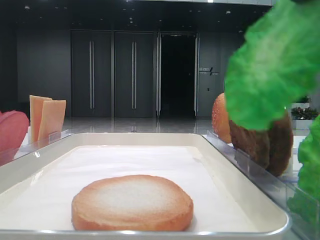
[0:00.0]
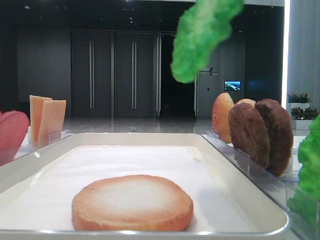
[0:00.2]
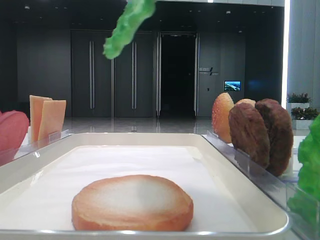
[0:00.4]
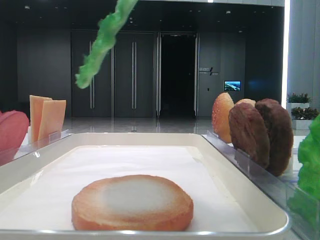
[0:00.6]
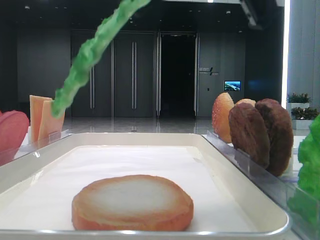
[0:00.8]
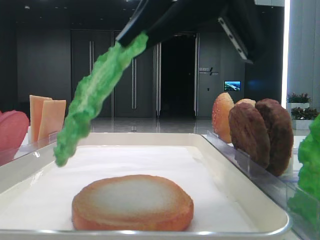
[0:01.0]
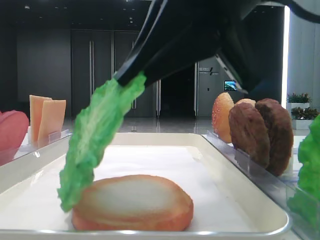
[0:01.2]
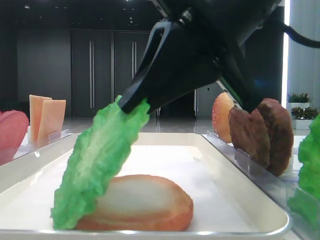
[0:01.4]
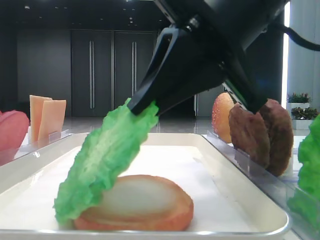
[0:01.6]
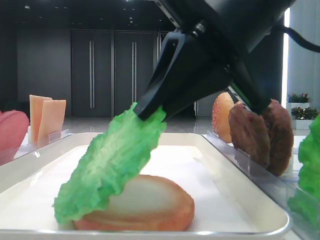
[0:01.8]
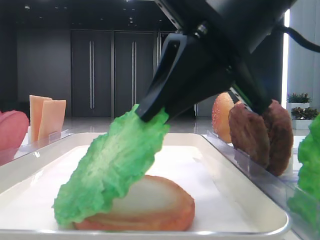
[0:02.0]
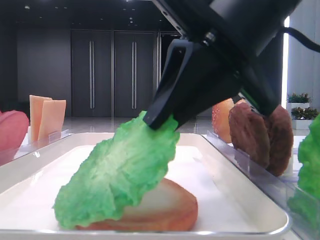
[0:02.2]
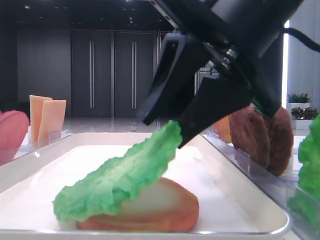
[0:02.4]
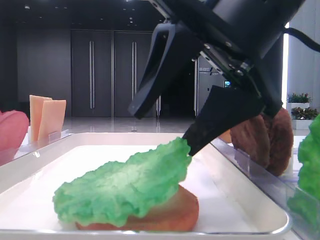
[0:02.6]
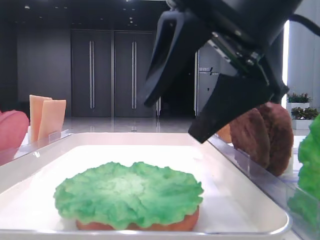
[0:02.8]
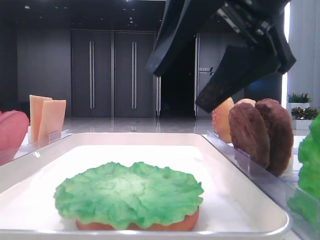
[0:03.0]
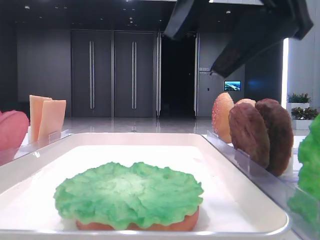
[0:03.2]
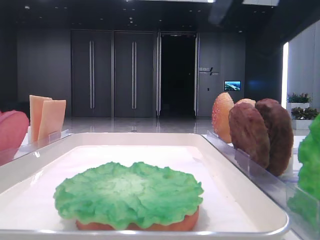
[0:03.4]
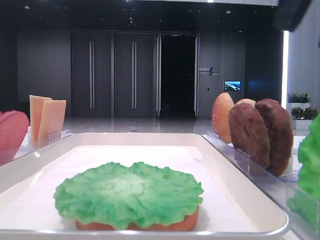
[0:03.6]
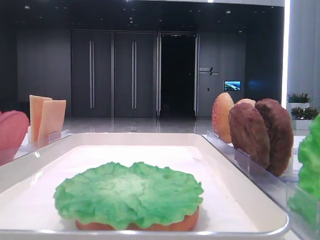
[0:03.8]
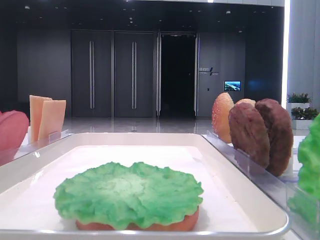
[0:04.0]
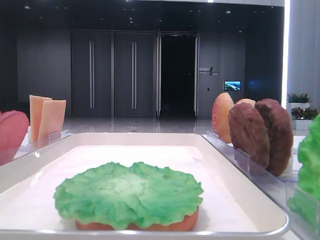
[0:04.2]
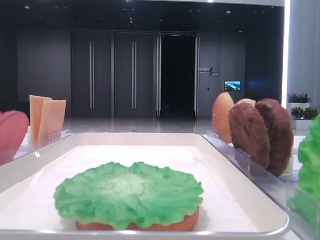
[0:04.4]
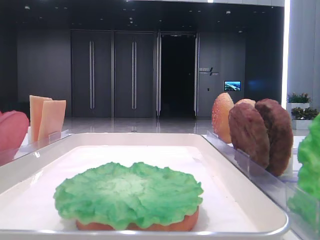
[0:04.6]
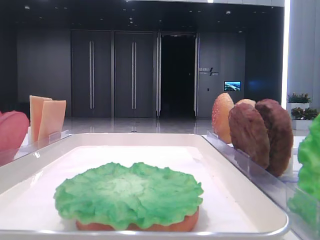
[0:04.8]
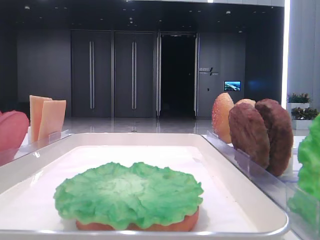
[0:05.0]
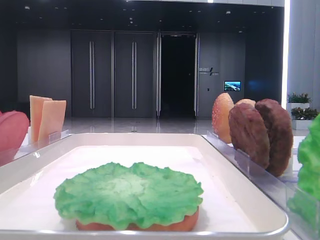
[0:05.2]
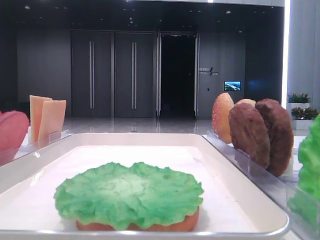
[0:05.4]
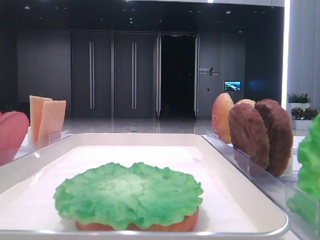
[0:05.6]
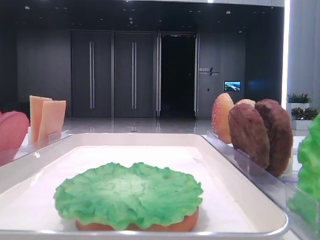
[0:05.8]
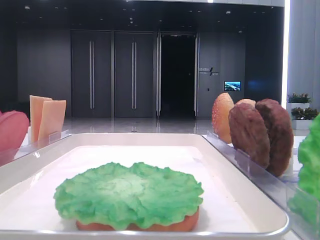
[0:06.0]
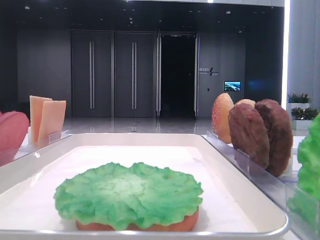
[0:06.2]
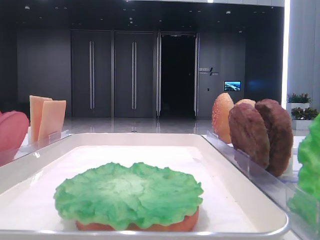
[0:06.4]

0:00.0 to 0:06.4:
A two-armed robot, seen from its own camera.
Step, 0:00.0 to 0:02.6: Place the lettuce leaf on the bottom bread with the right hand.
0:00.0 to 0:01.6: The right gripper shifts approximately 15 cm downward, to the left and forward.
0:01.6 to 0:03.2: The right gripper moves upward, approximately 5 cm, and opens its fingers.
0:03.2 to 0:04.8: The right gripper travels to the right and backward by roughly 20 cm.

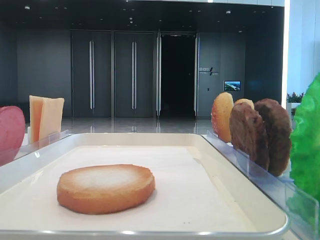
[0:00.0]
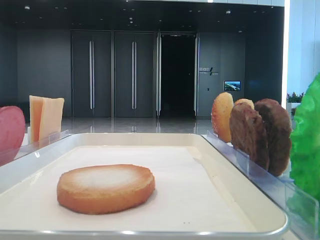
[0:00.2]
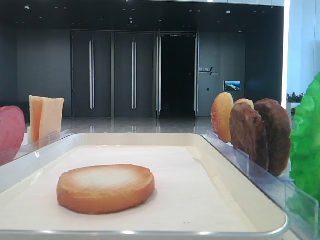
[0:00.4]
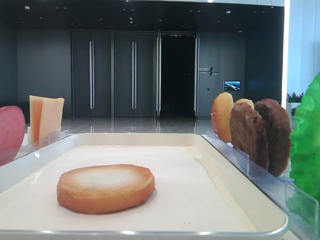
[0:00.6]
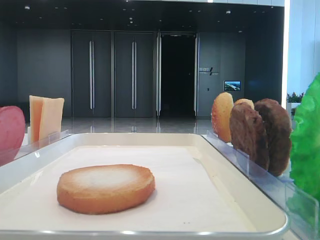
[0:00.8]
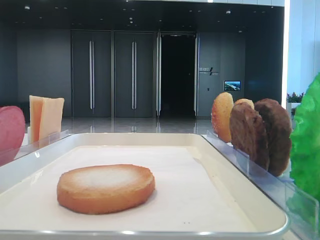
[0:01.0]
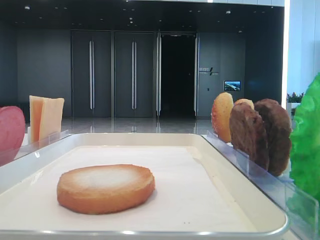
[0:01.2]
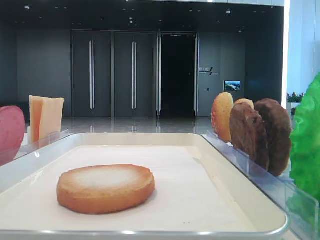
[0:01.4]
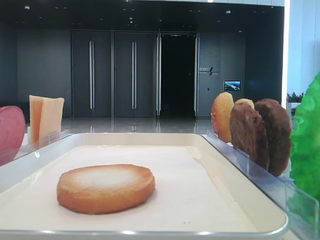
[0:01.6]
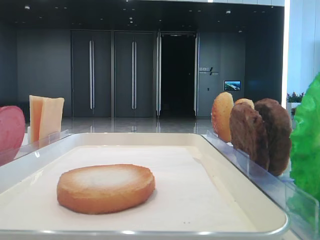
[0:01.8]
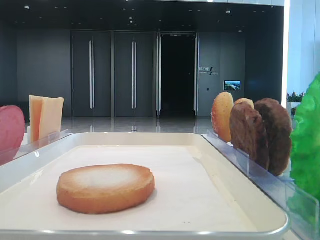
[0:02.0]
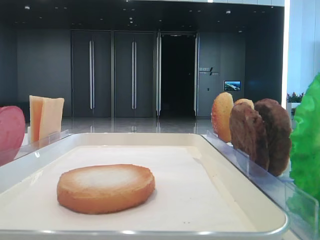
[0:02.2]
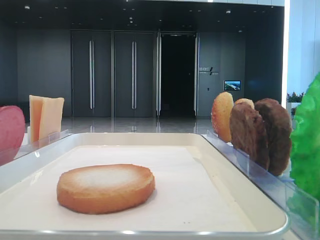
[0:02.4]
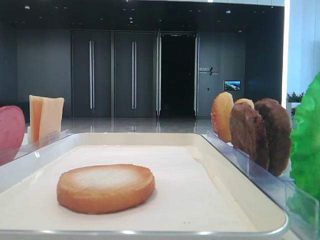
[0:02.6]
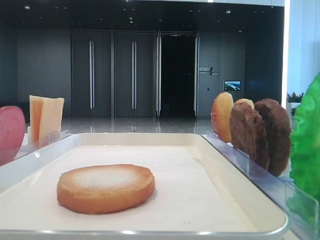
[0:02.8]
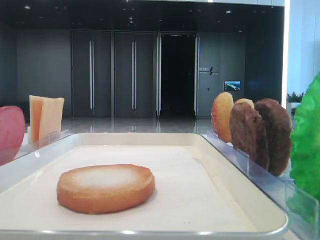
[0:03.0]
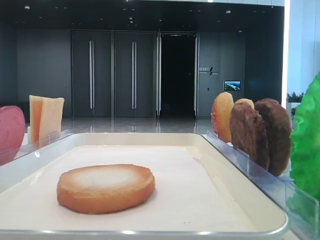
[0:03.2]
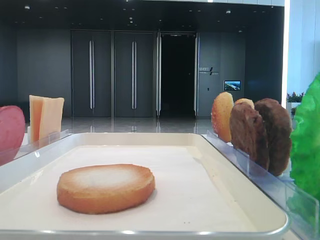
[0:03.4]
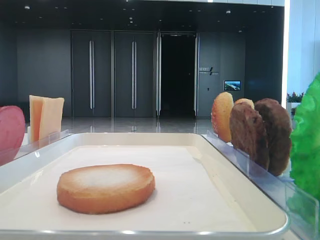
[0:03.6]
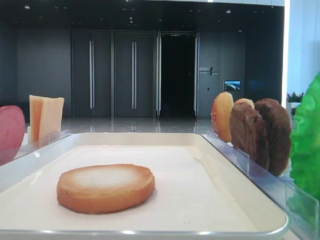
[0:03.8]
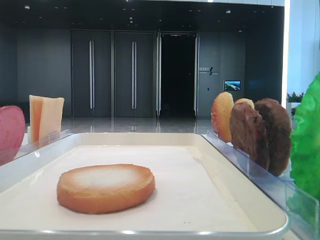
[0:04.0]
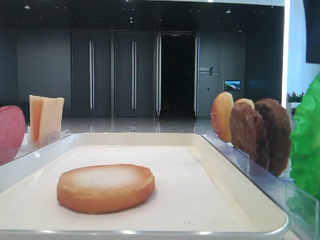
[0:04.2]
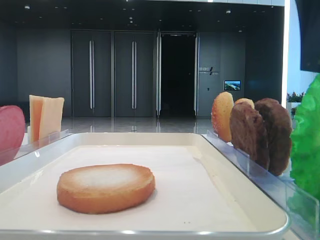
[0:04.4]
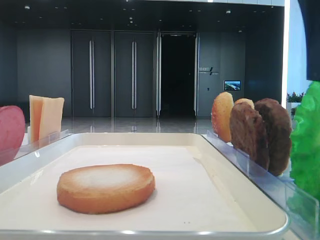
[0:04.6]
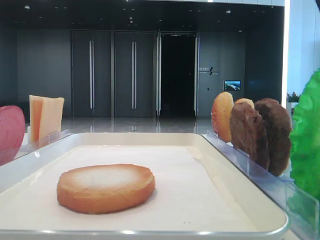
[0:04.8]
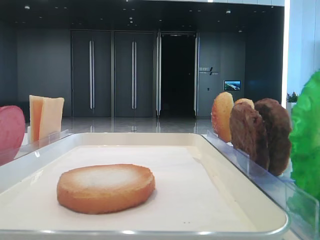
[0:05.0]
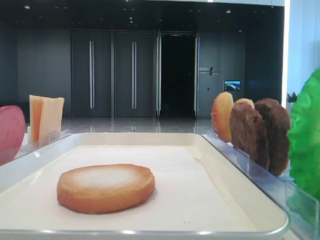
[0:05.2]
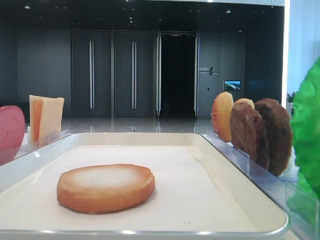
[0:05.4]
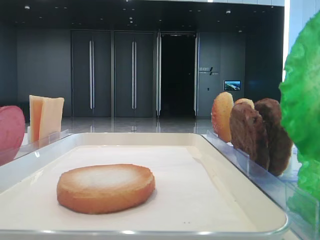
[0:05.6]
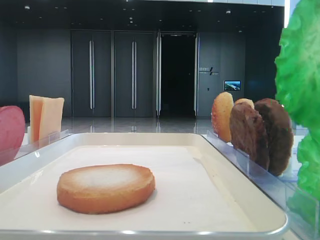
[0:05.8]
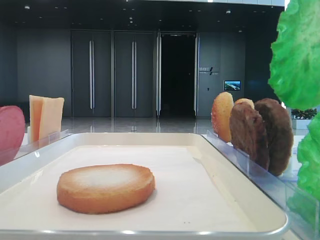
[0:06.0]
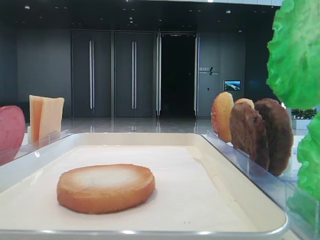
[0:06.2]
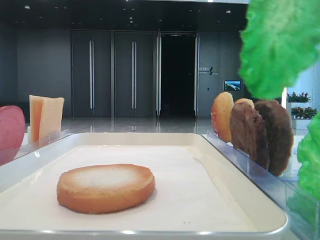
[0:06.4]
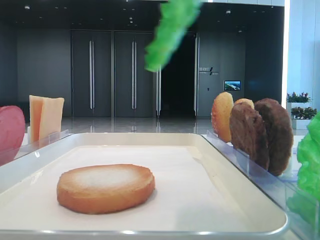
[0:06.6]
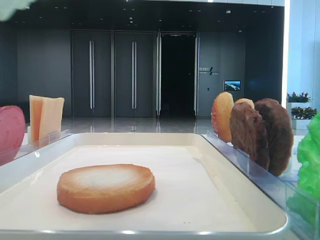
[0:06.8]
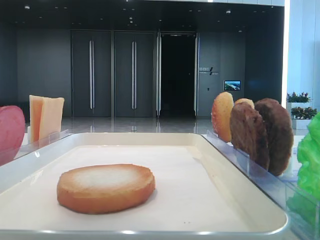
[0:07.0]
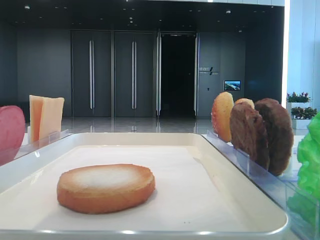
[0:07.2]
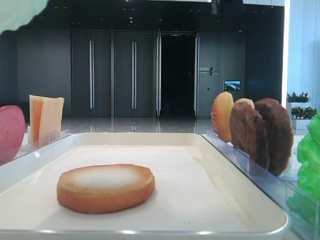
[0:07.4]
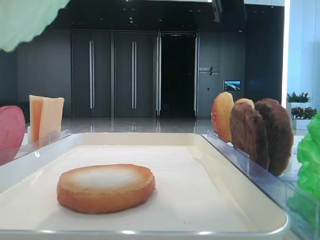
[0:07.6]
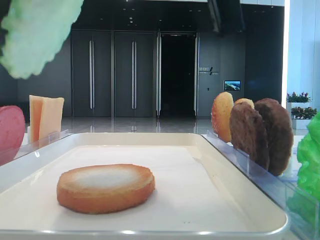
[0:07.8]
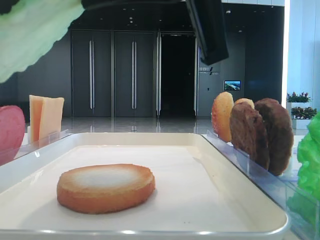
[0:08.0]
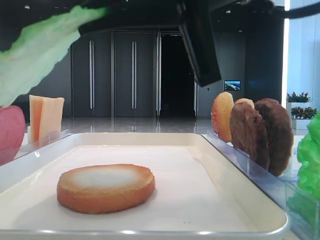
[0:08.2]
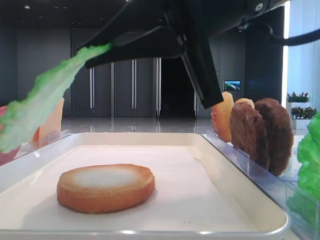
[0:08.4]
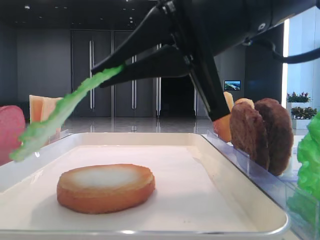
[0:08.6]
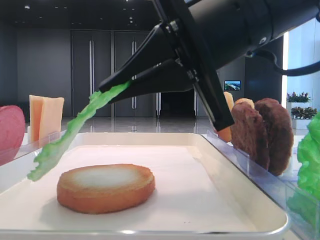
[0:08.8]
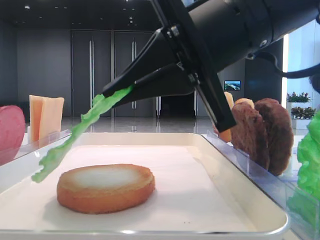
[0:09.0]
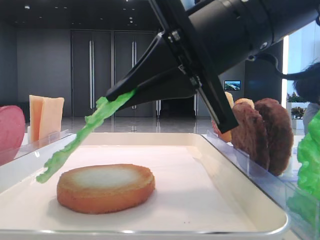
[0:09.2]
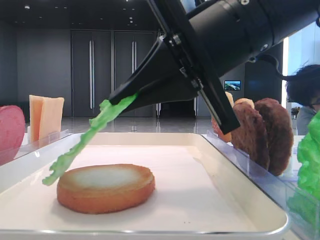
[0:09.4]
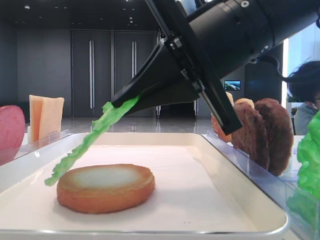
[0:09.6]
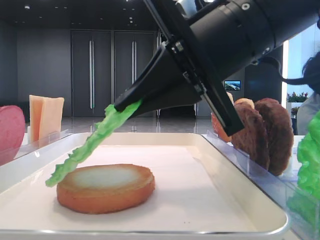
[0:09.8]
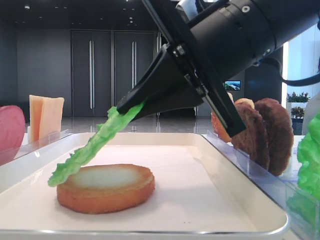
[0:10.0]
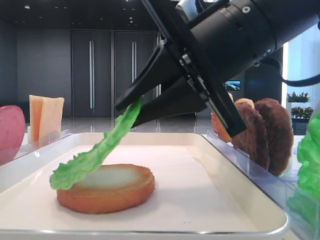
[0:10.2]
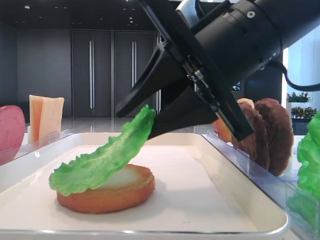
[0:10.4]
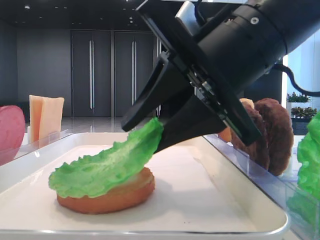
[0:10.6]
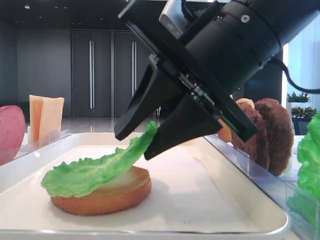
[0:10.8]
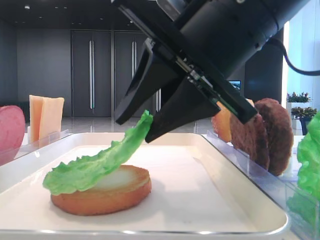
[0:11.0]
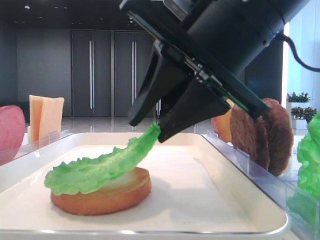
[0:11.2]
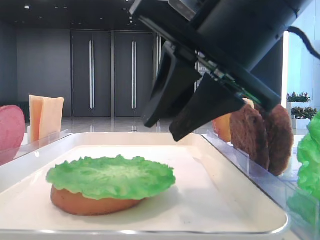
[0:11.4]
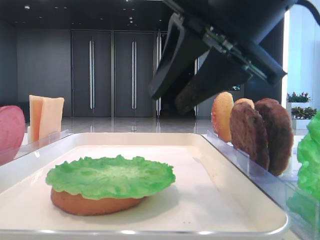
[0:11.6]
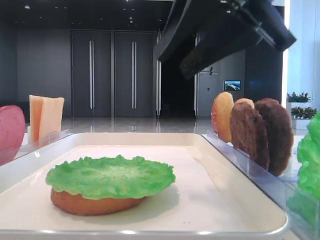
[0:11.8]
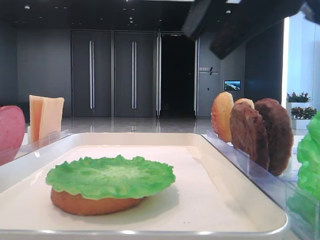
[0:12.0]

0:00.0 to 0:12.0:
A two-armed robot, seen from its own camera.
Step, 0:00.0 to 0:04.8: Grab the lettuce leaf with the right hand.
Step, 0:05.0 to 0:11.2: Place the lettuce leaf on the bottom bread with the right hand.
0:03.0 to 0:04.4: The right gripper shifts about 10 cm to the left, downward and forward.
0:04.4 to 0:06.0: The right gripper travels upward by roughly 5 cm, and closes its fingers.
0:06.0 to 0:07.6: The right gripper is displaced to the left and downward by approximately 10 cm.
0:07.6 to 0:09.0: The right gripper travels downward by roughly 10 cm.
0:09.0 to 0:10.4: The right gripper opens its fingers.
0:10.4 to 0:12.0: The right gripper goes about 10 cm upward and backward.

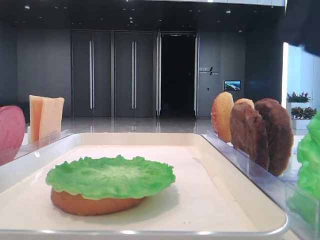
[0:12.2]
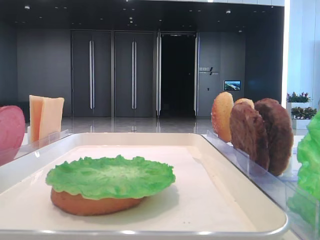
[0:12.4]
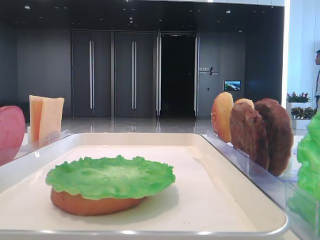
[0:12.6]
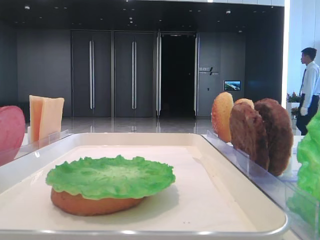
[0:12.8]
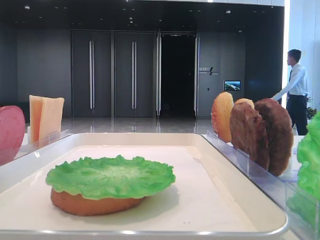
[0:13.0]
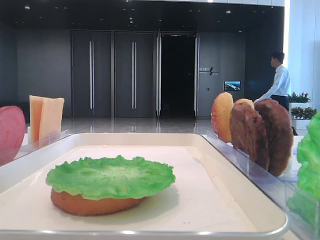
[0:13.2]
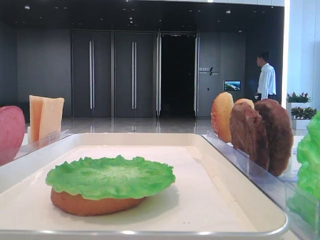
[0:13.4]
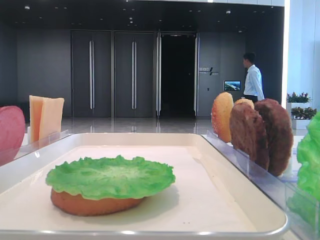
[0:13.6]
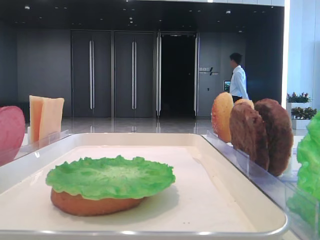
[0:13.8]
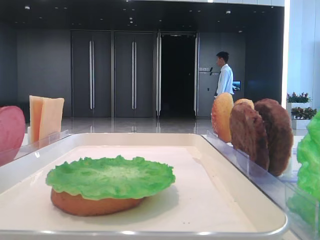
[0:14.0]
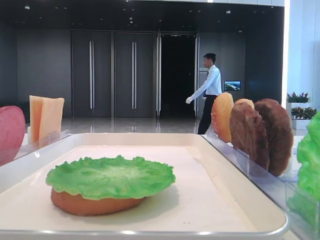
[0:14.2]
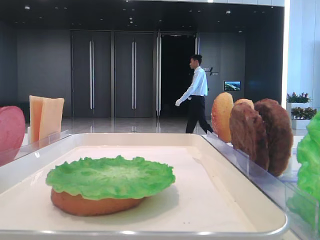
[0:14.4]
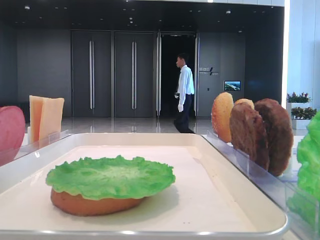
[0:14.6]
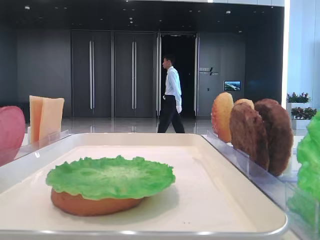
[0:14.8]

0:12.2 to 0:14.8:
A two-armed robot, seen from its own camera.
0:12.2 to 0:13.4: The right gripper travels to the right, backward and upward by approximately 20 cm.
0:13.4 to 0:14.8: The right gripper shifts approximately 10 cm downward and backward.

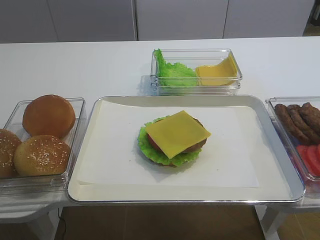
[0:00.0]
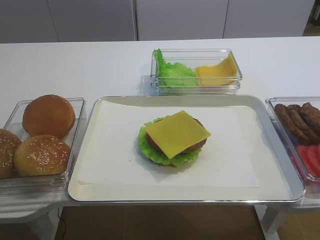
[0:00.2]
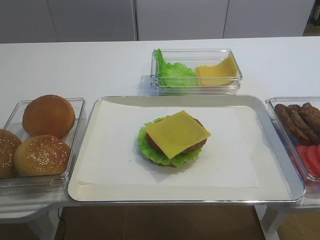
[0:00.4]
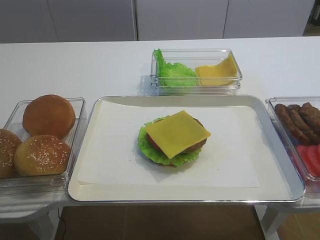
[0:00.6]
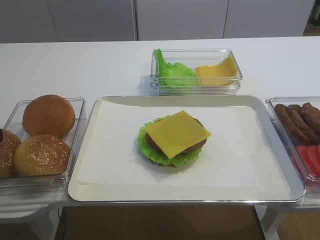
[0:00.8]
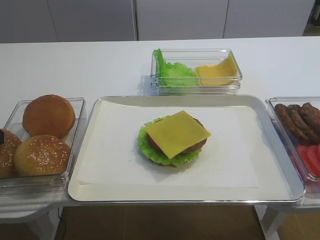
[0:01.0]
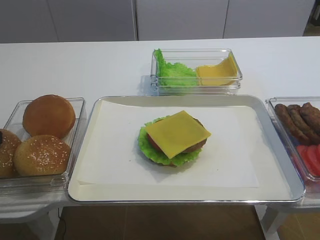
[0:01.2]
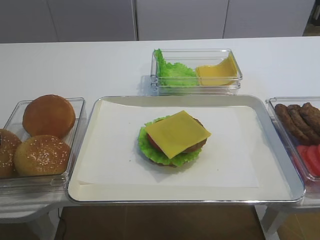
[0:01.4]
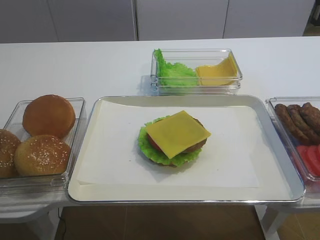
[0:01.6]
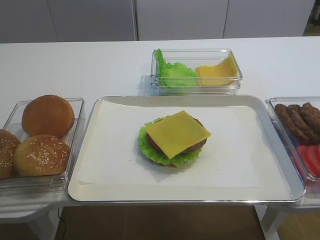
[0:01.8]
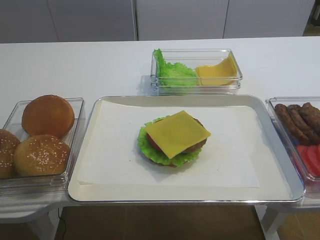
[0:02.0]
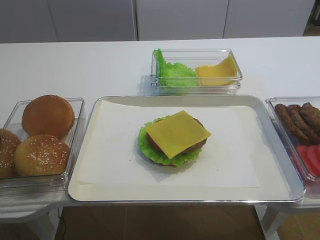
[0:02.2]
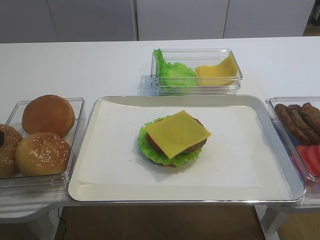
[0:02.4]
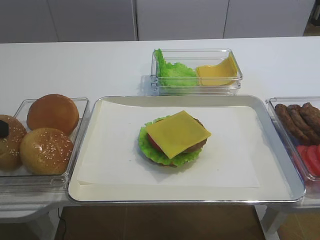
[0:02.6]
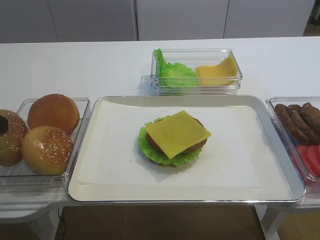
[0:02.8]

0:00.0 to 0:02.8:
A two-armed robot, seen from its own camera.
0:01.4 to 0:02.8: The left gripper closes its fingers.
